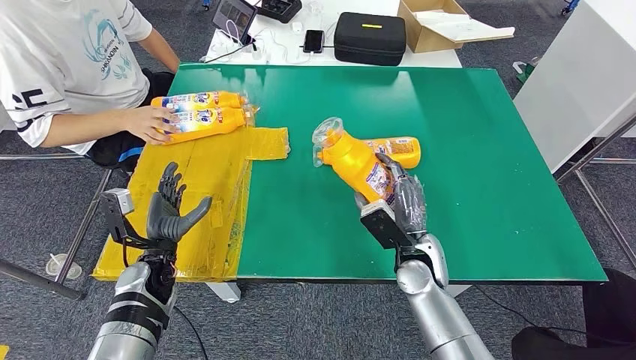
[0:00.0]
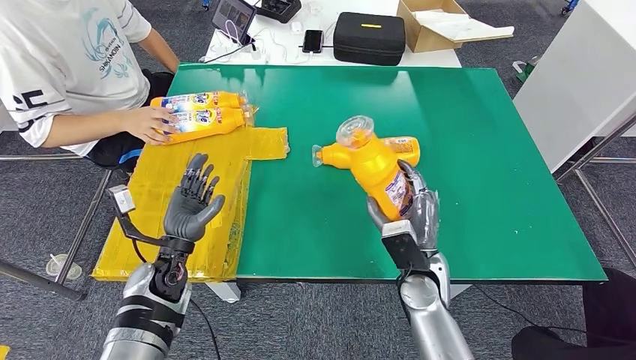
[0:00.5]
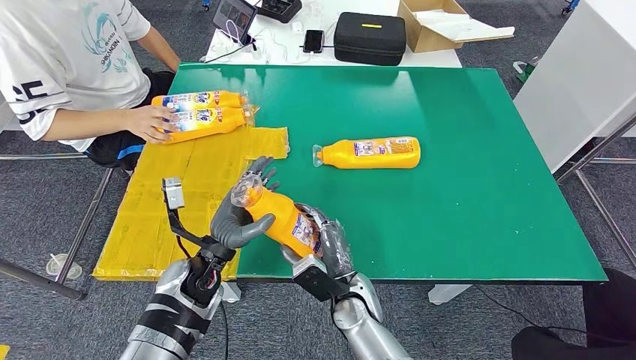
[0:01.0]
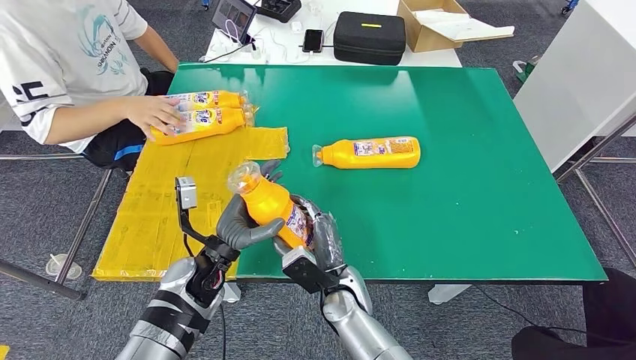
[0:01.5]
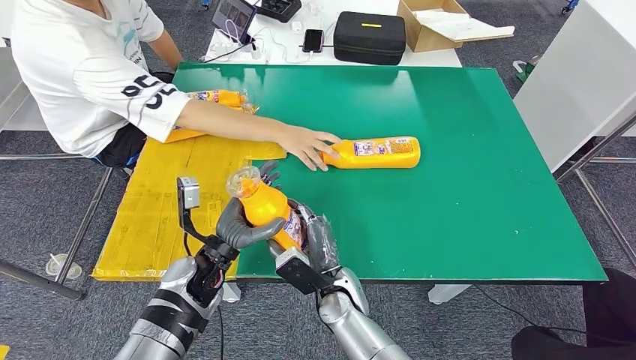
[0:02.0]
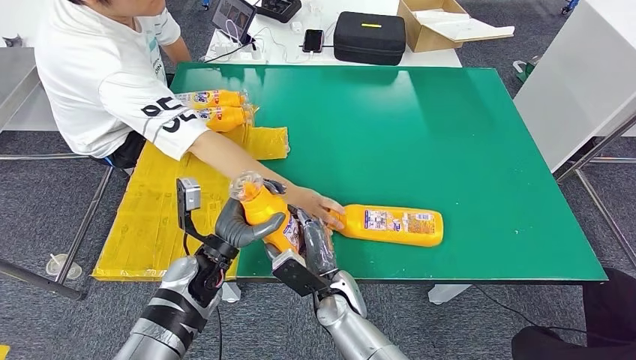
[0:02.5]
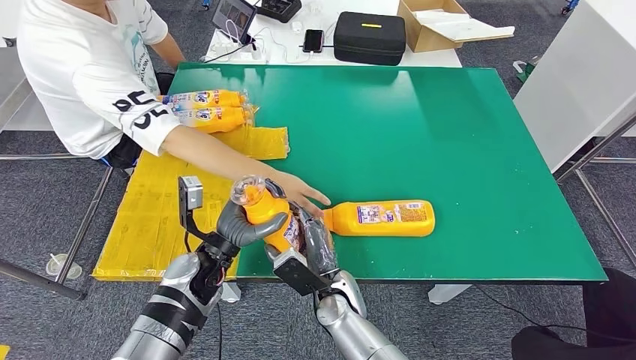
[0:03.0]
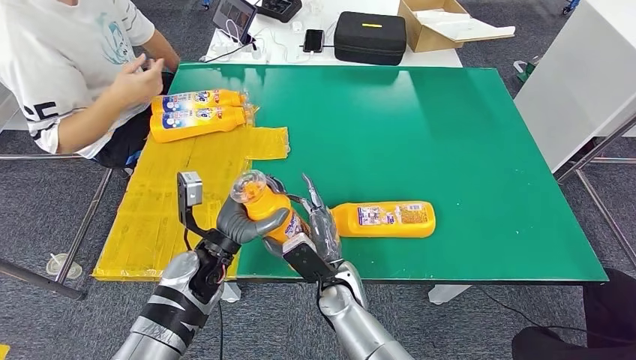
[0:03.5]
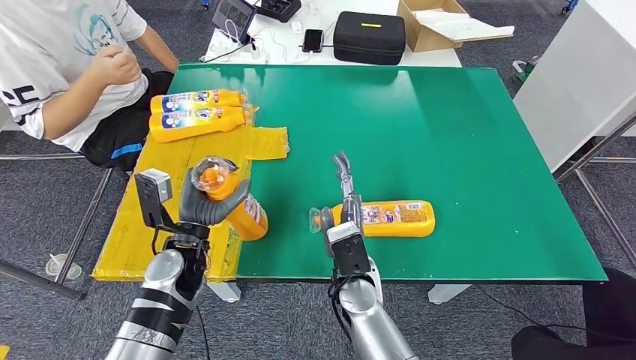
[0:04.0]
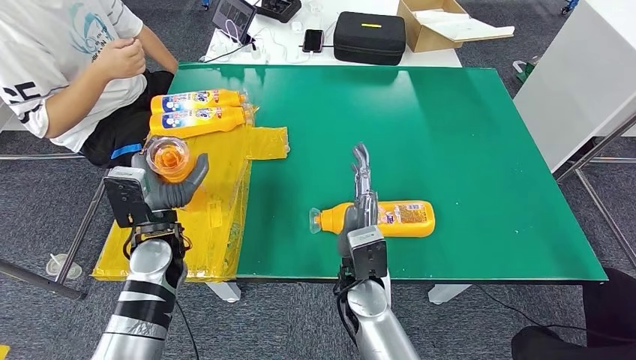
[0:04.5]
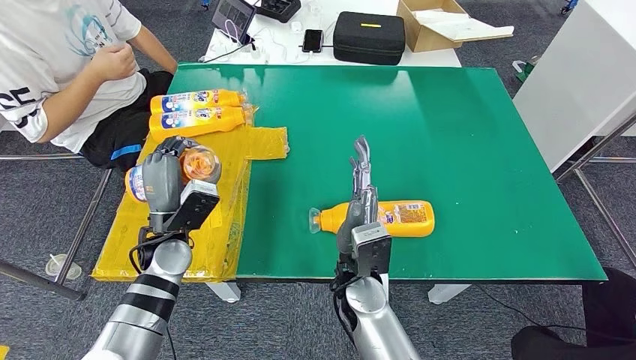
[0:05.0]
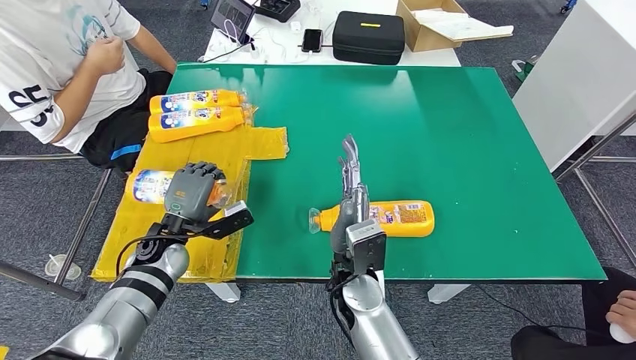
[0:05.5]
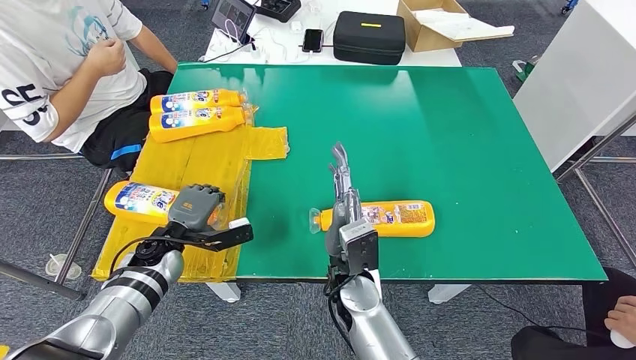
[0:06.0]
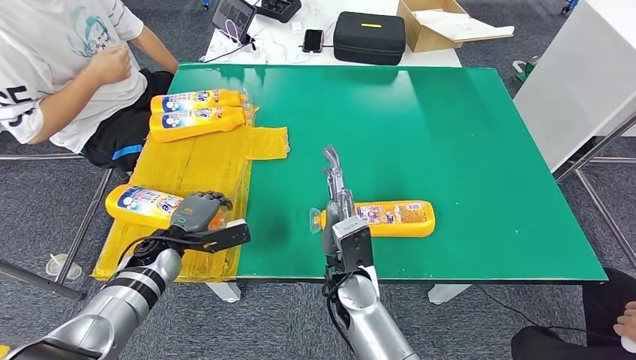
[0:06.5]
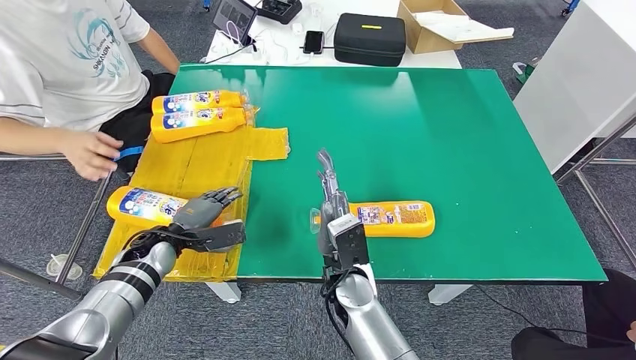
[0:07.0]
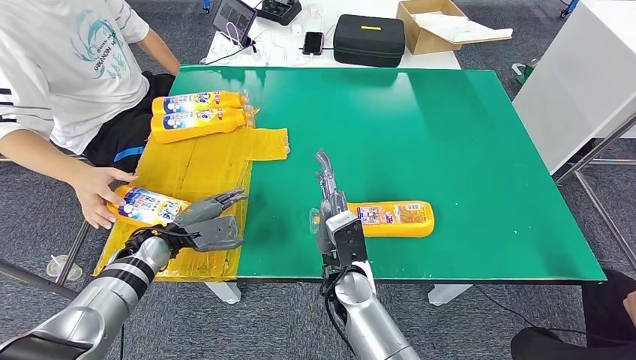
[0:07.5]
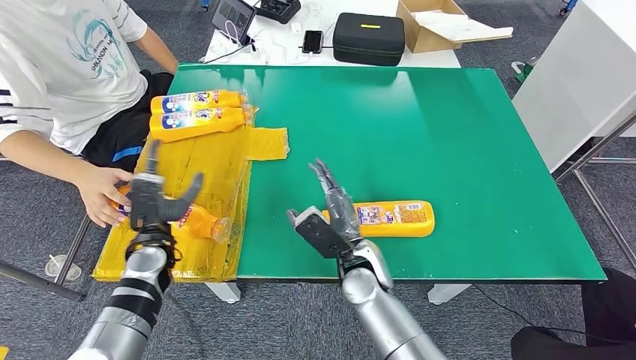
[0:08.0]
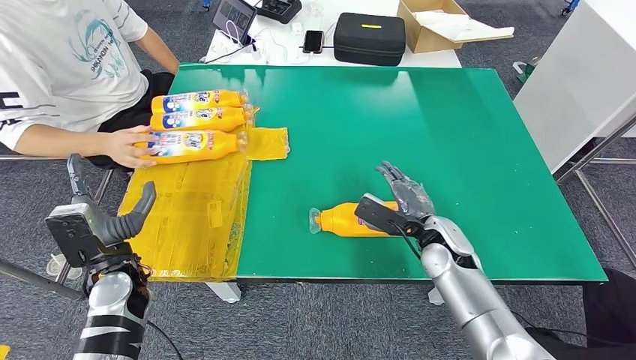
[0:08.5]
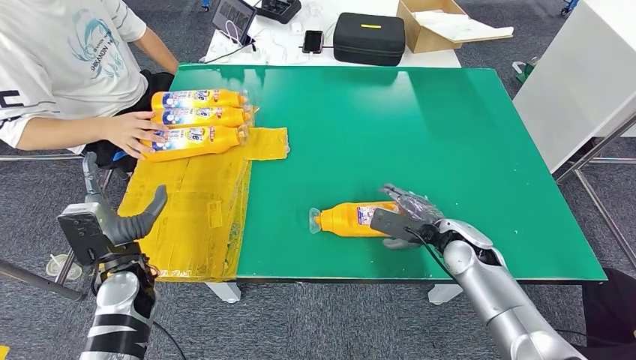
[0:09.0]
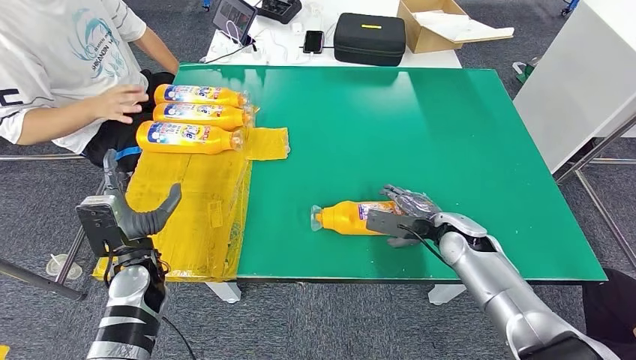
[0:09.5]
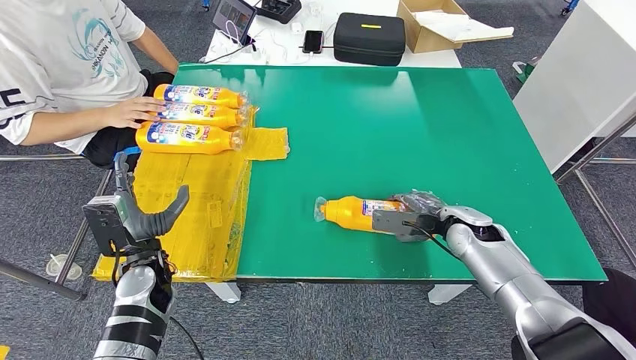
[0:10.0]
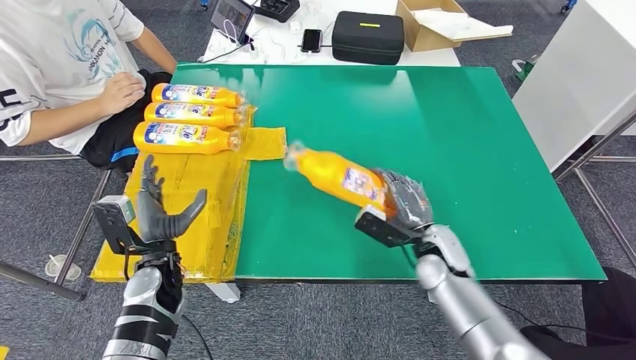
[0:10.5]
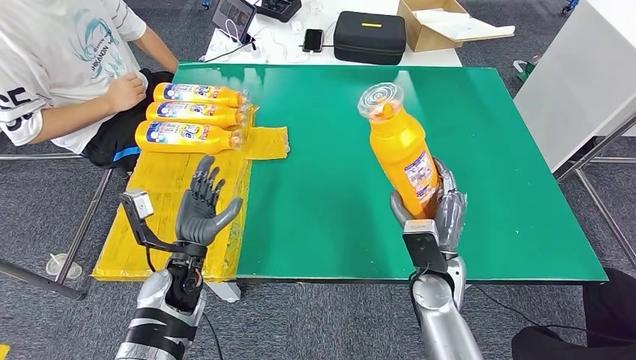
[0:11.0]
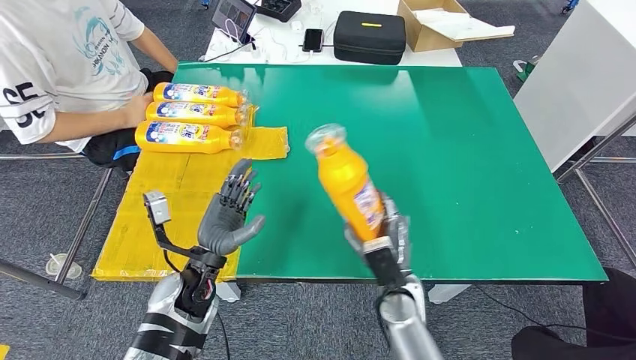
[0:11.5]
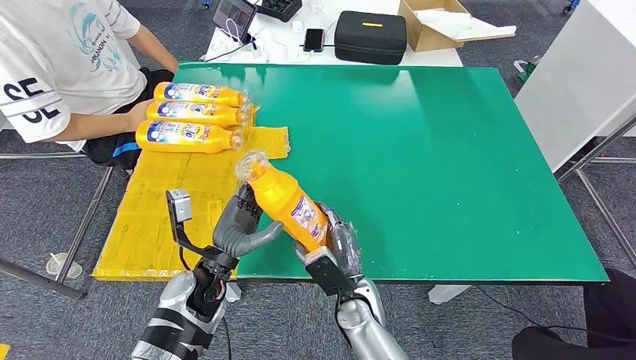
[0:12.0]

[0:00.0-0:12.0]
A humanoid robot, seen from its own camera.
Step, 0:00.5 to 0:08.0: Flip the bottle to face forward.
0:04.0 to 0:06.0: The left hand travels to the left and downward by about 10 cm.

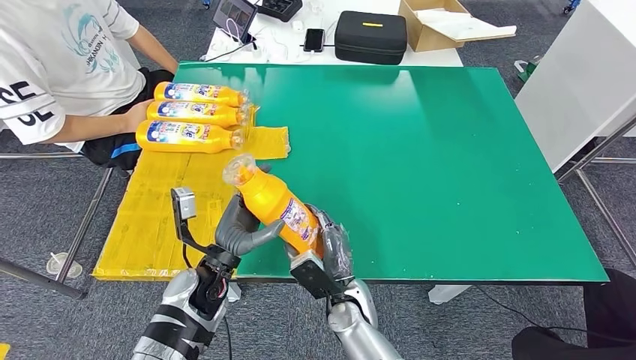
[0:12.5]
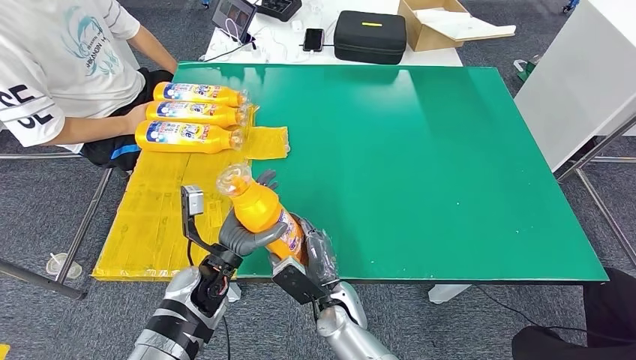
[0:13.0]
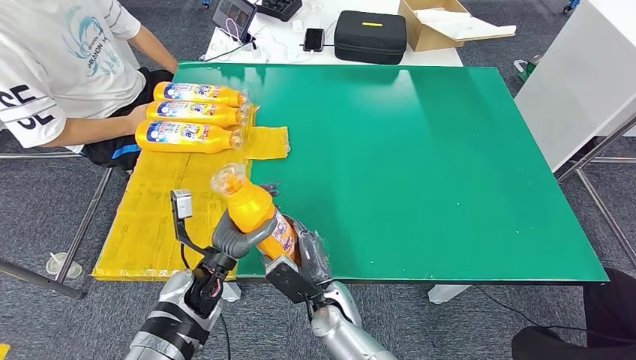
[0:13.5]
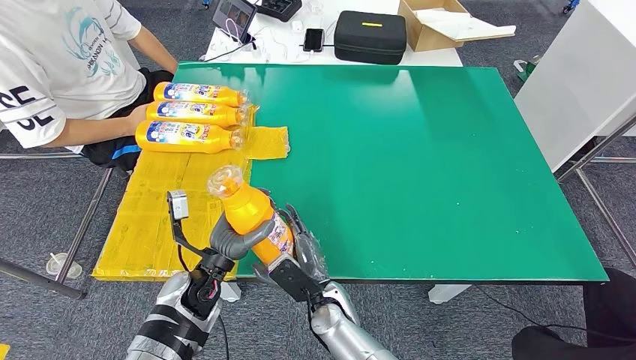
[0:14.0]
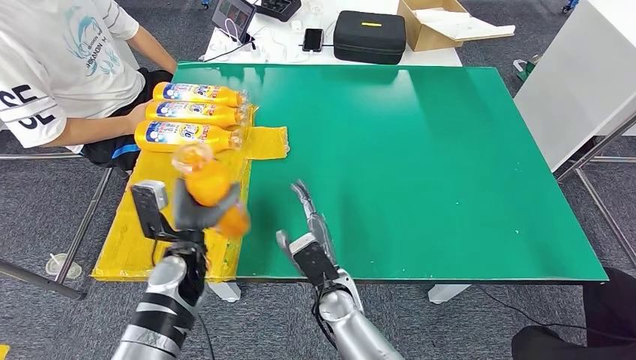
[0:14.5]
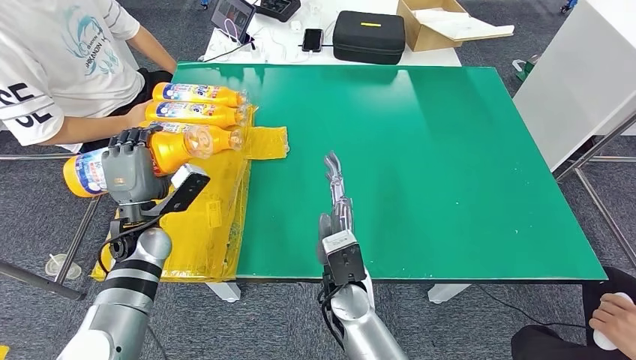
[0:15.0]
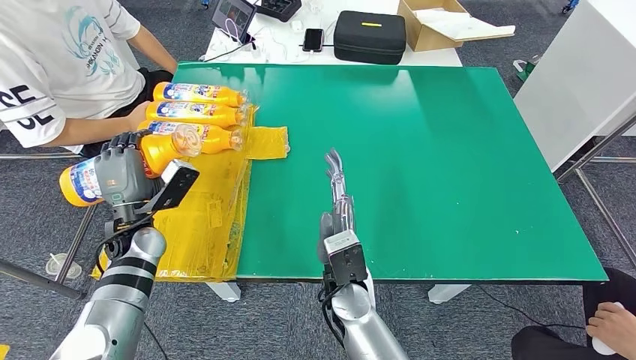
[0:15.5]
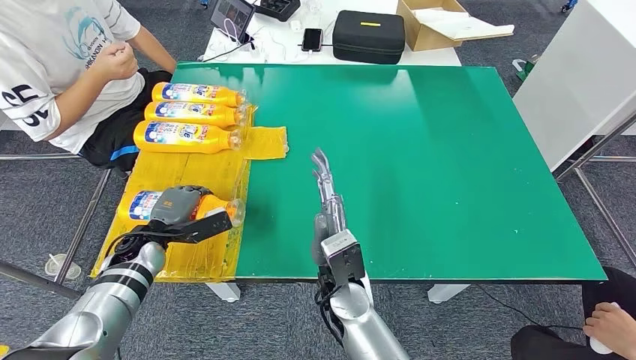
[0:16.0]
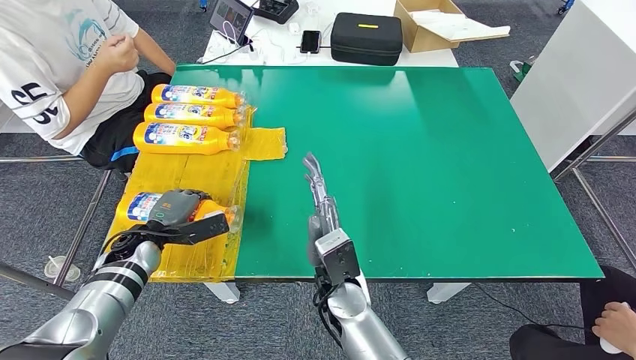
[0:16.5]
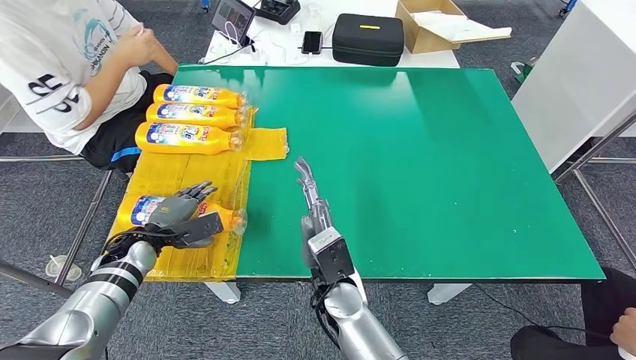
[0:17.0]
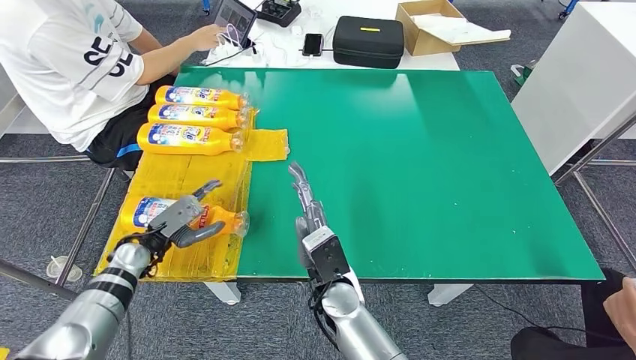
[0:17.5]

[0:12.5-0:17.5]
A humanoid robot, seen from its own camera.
Step, 0:12.5 to 0:17.5: Flip the bottle to face forward.
